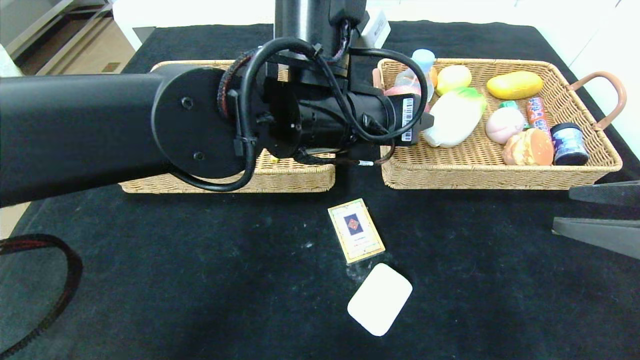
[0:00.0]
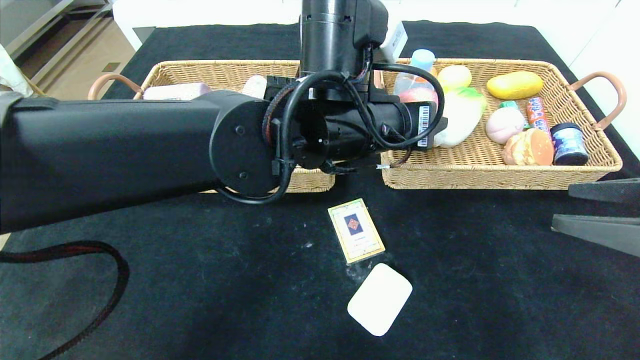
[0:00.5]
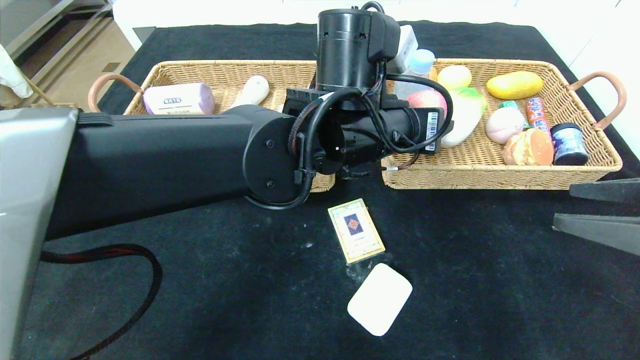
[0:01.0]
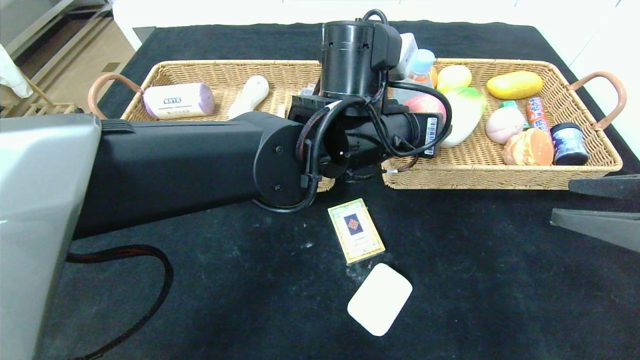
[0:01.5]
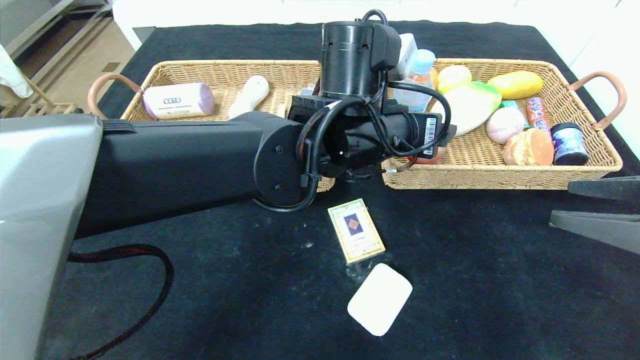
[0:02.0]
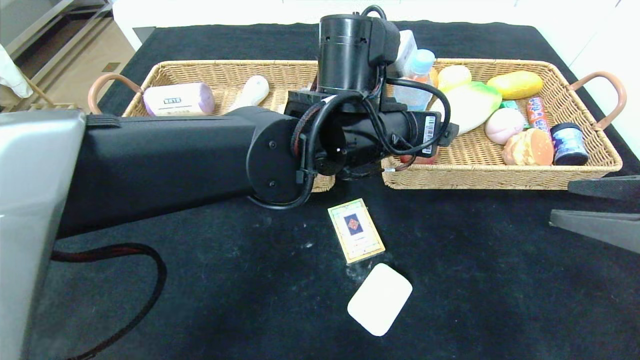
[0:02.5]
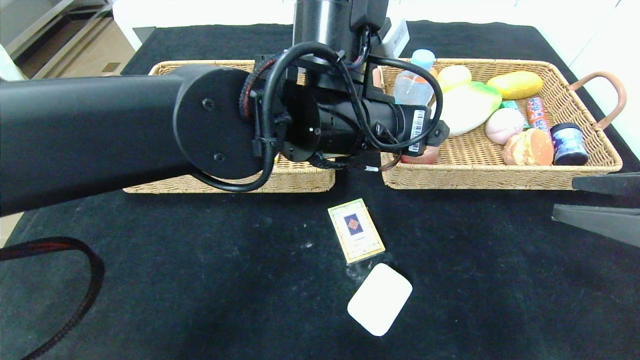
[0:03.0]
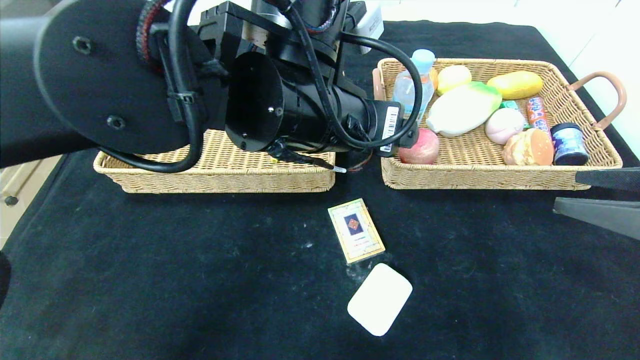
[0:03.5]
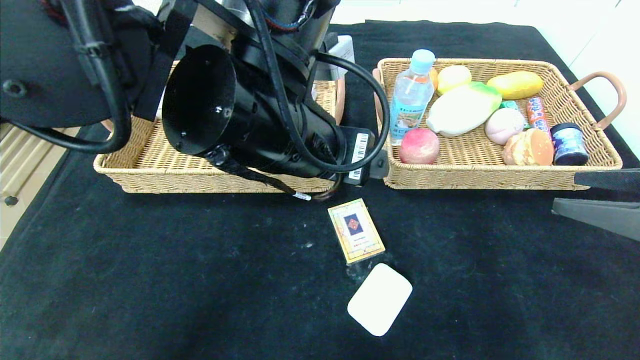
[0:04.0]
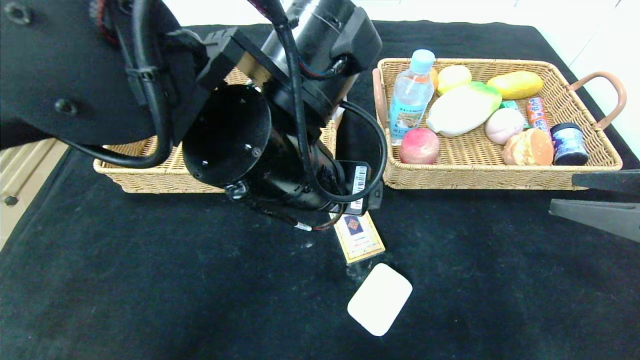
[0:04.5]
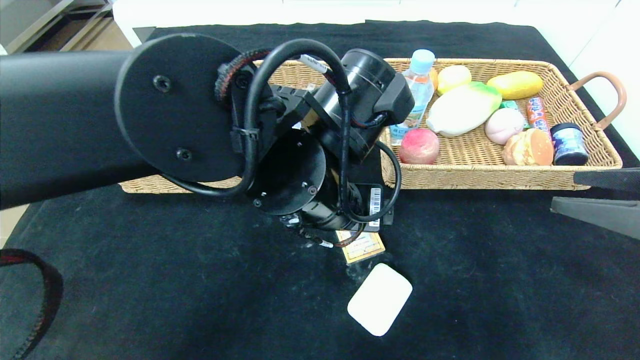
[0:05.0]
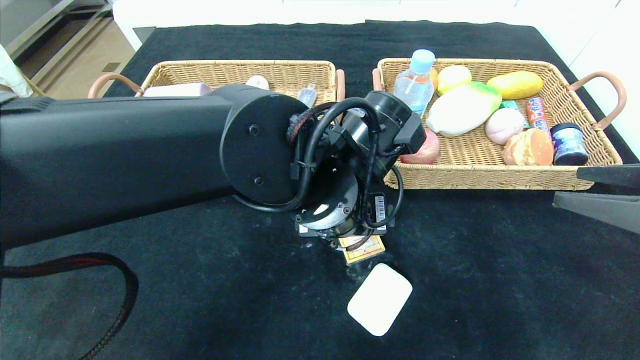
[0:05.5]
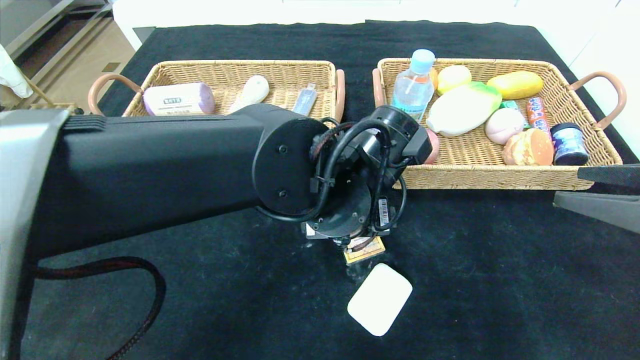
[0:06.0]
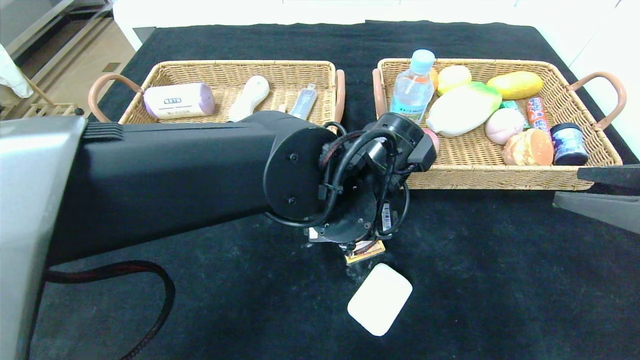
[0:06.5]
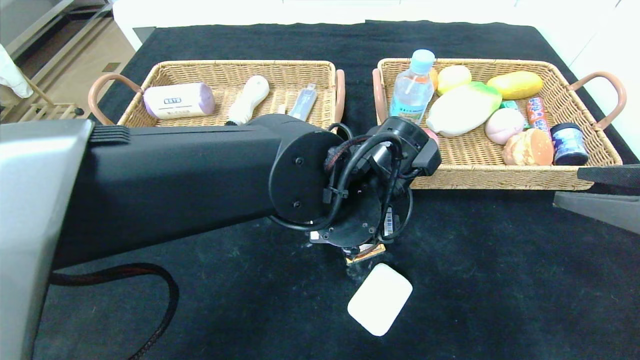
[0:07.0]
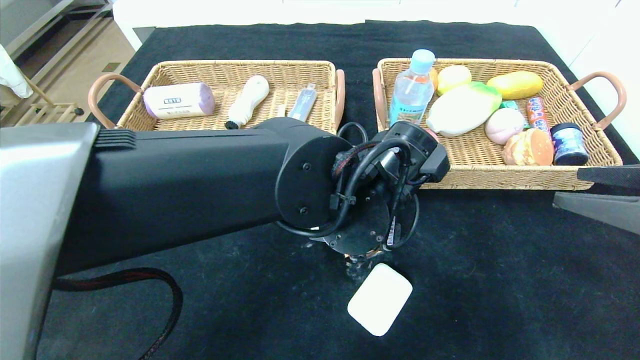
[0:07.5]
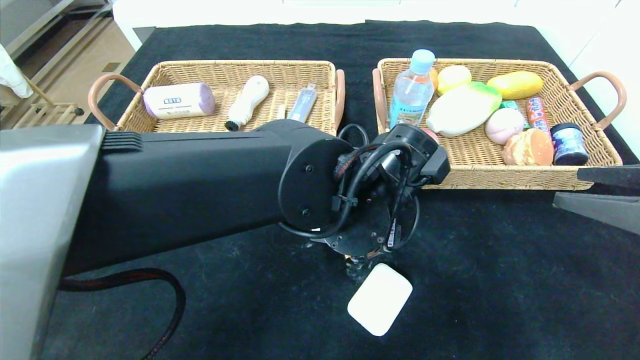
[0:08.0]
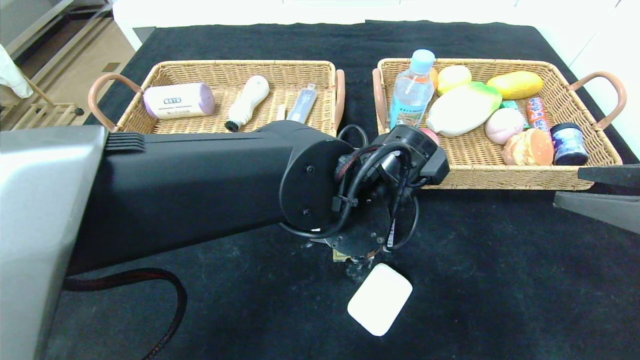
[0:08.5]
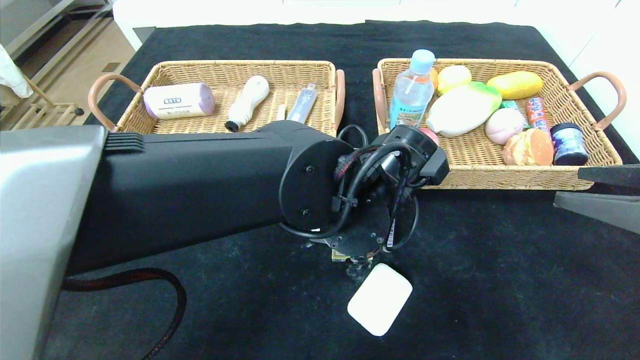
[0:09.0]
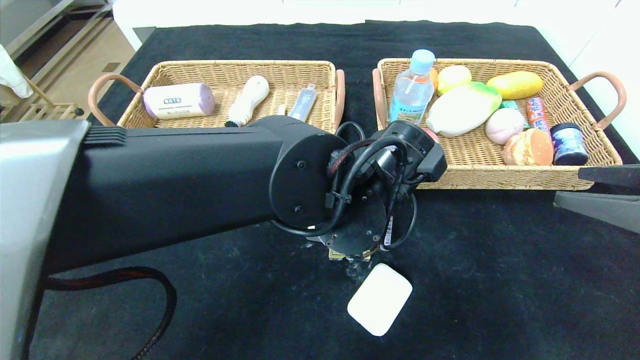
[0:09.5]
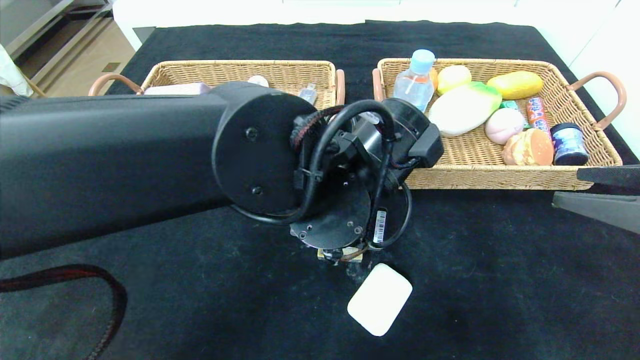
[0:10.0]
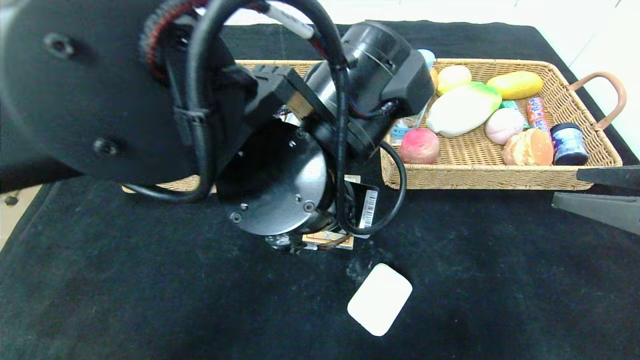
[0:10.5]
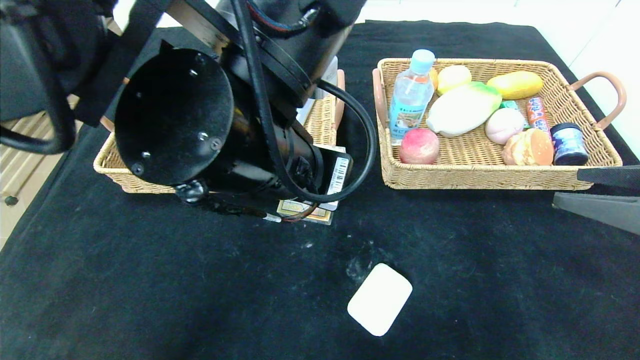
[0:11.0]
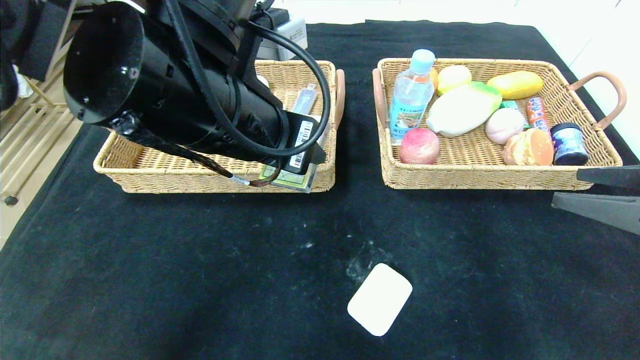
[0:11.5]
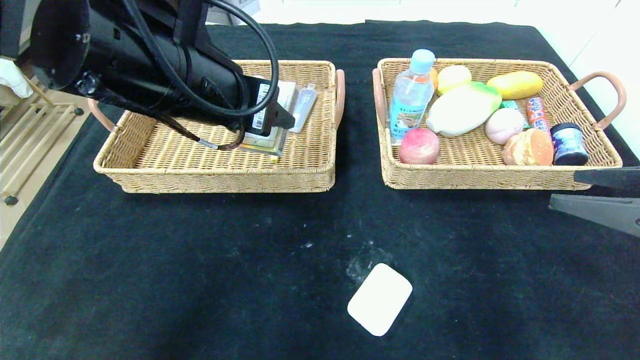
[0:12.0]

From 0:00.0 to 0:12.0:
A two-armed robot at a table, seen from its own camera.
Step, from 0:00.0 to 0:02.0: Grasp the peach and put it in the right basket.
From 0:00.0 to 0:02.0: The left gripper opens its fingers.
From 0:02.0 to 0:04.0: The left gripper moves to the left and backward, some 10 cm.
From 0:04.0 to 0:06.0: The left gripper heads downward and to the right, covering roughly 10 cm.
From 0:06.0 to 0:08.0: There are only small adjustments of the grippers.
From 0:08.0 to 0:10.0: The left gripper closes its fingers.
From 0:10.0 to 0:12.0: The left gripper is displaced to the left and upward by roughly 15 cm.

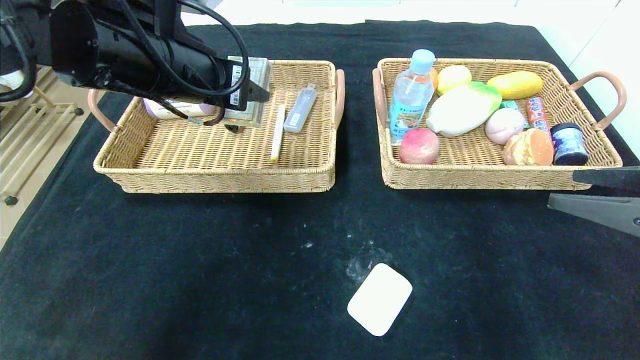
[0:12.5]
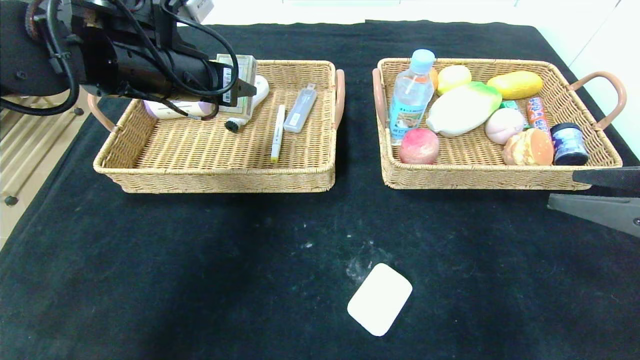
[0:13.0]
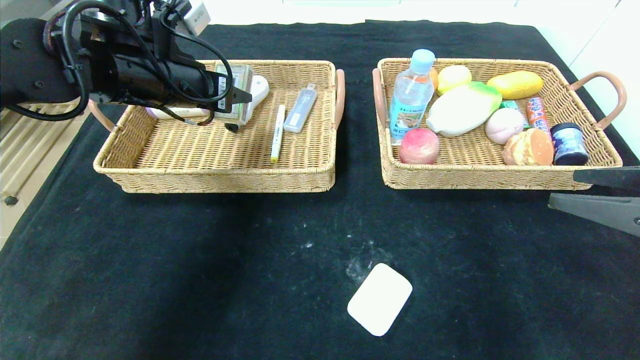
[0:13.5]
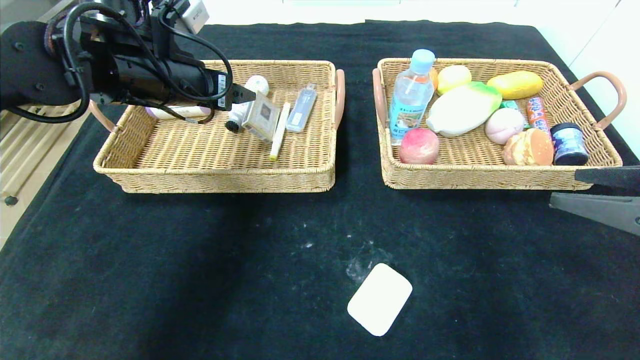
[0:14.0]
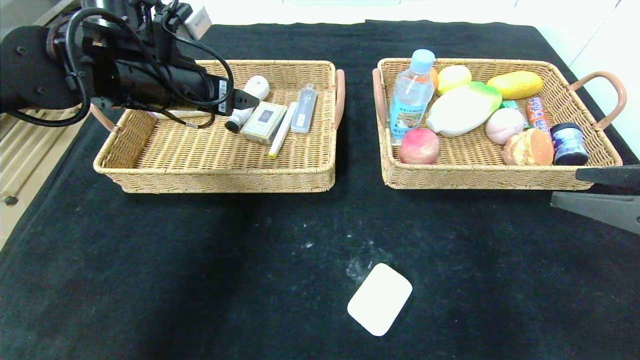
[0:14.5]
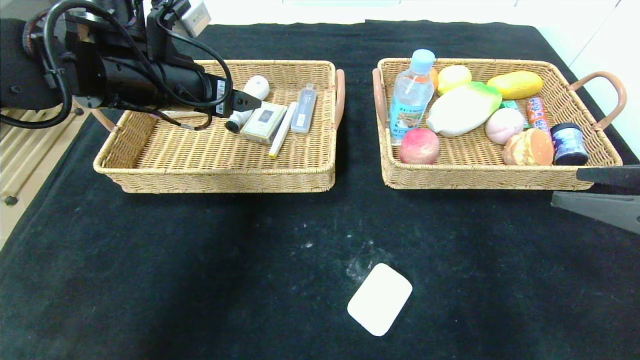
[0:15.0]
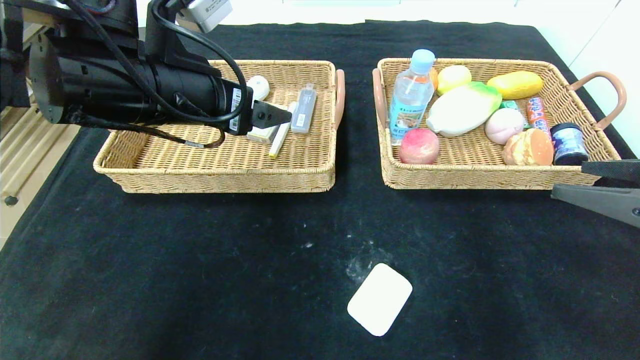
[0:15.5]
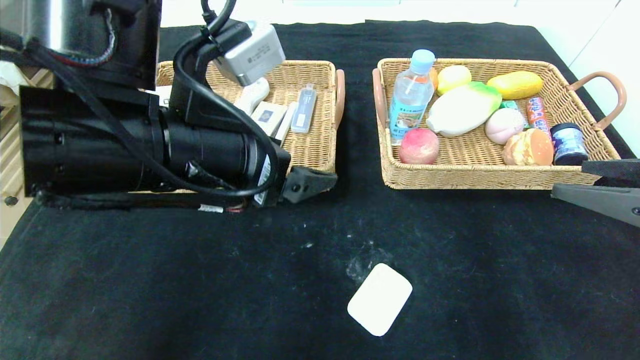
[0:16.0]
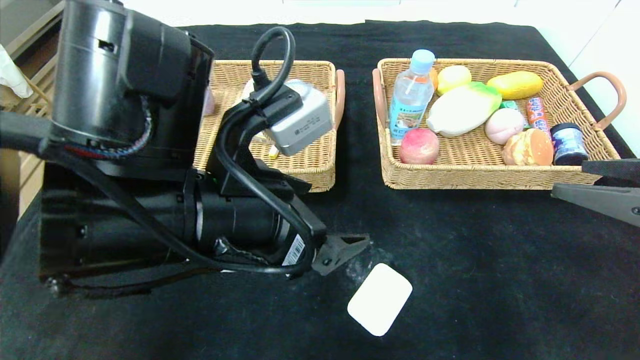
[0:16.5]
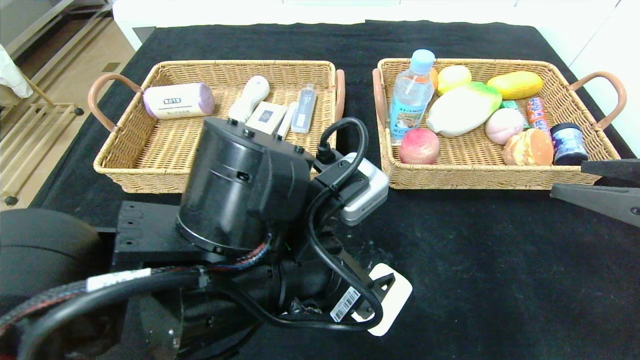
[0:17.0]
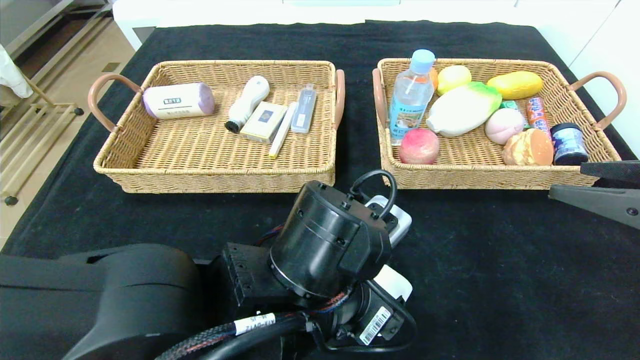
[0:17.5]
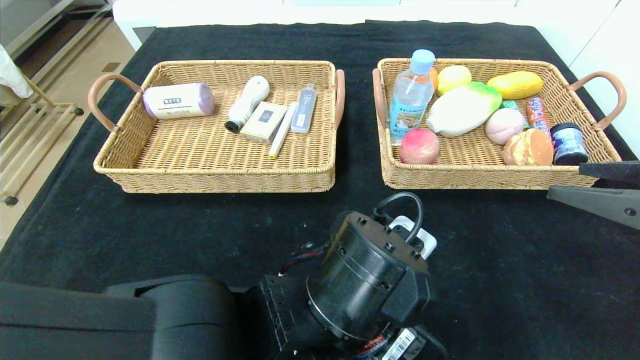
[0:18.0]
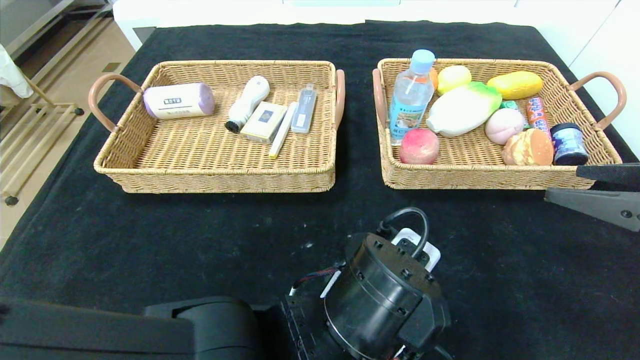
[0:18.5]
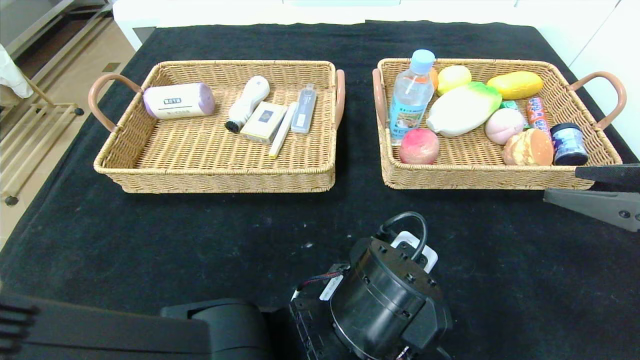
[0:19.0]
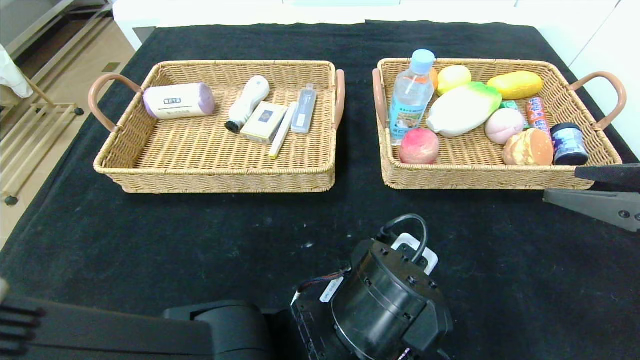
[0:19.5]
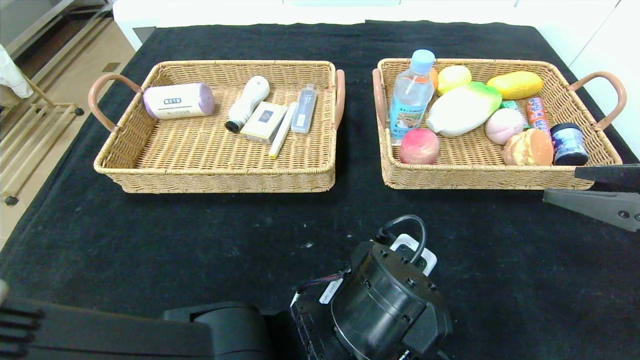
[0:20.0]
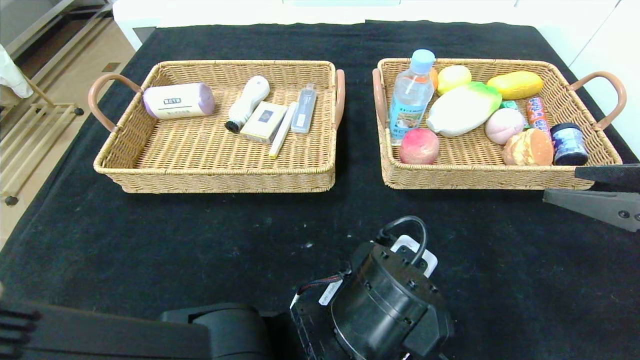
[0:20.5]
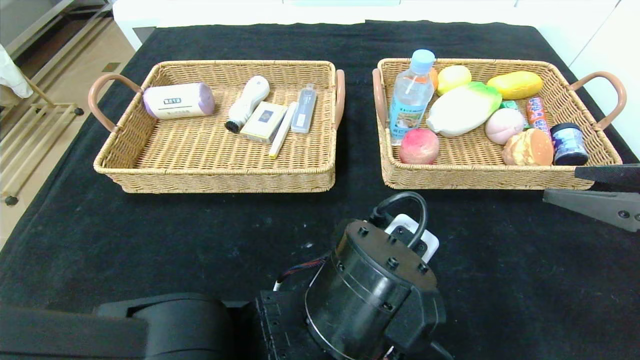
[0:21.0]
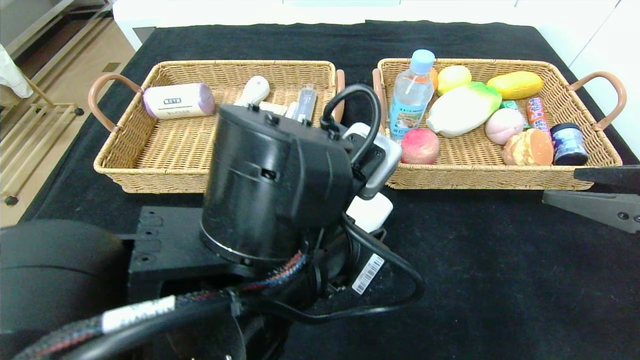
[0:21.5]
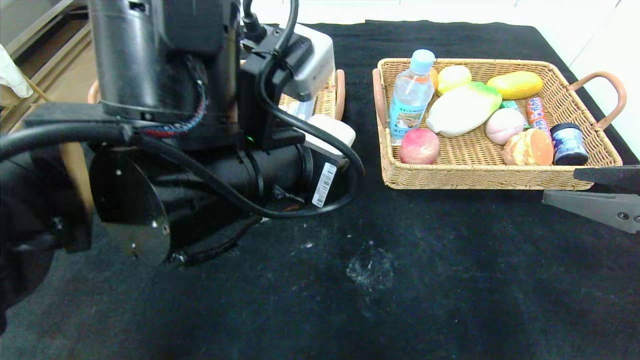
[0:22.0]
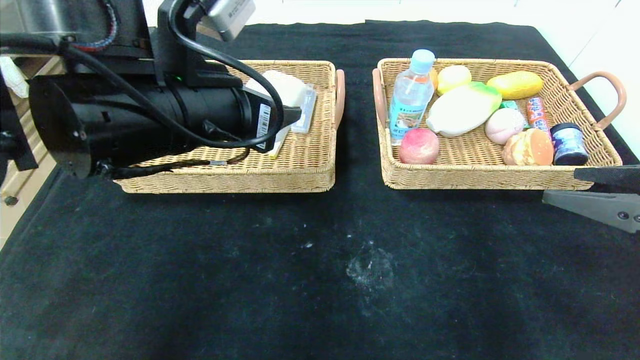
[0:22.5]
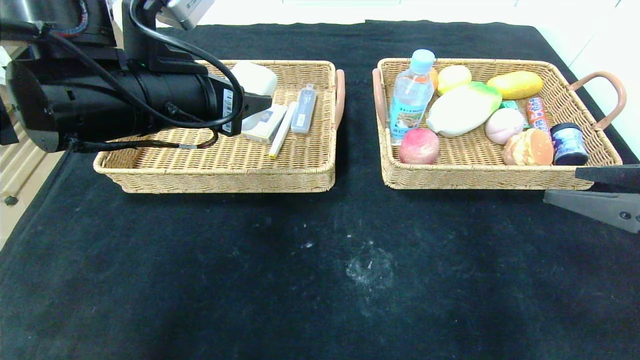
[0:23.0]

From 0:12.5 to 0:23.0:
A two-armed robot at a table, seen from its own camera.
From 0:12.5 to 0:14.5: The left gripper moves forward, approximately 5 cm, and opens its fingers.
From 0:14.5 to 0:16.5: The left gripper shifts roughly 20 cm backward and to the right.
From 0:16.5 to 0:19.0: The left gripper shifts roughly 15 cm downward and to the right.
From 0:19.0 to 0:21.0: The left gripper closes.
From 0:21.0 to 0:23.0: The left gripper shifts roughly 25 cm to the left, upward and forward.
